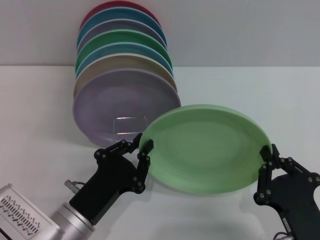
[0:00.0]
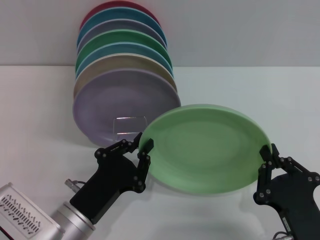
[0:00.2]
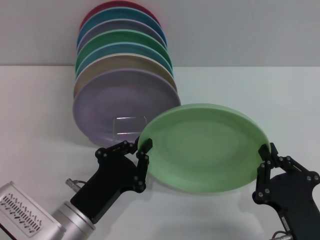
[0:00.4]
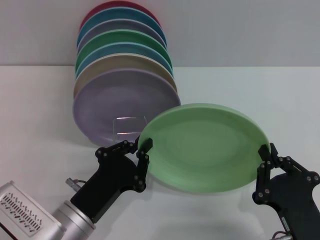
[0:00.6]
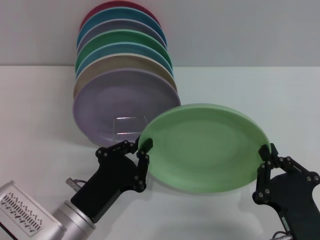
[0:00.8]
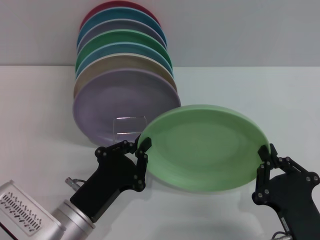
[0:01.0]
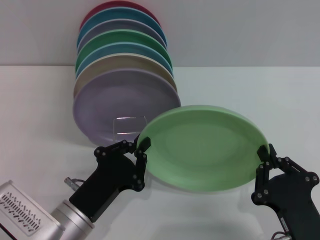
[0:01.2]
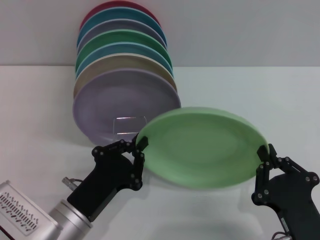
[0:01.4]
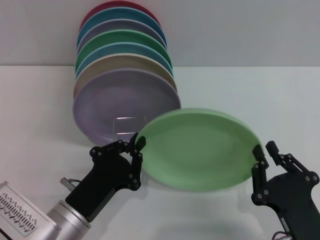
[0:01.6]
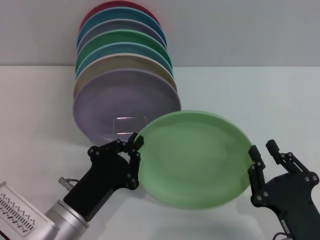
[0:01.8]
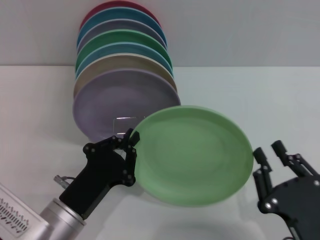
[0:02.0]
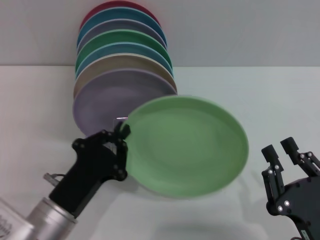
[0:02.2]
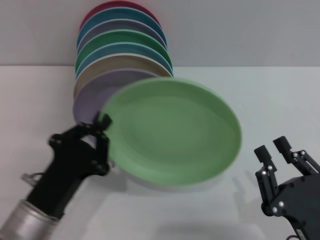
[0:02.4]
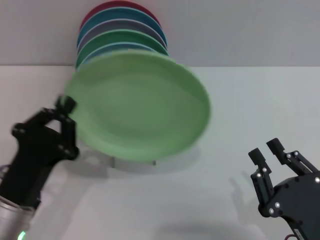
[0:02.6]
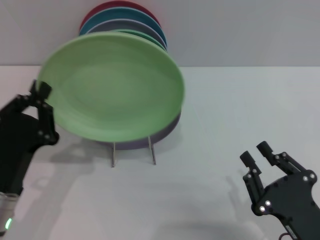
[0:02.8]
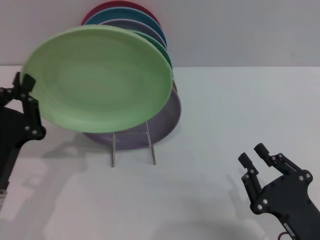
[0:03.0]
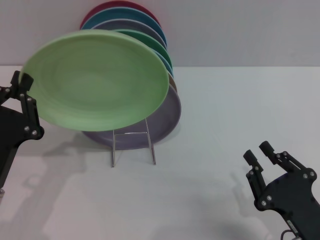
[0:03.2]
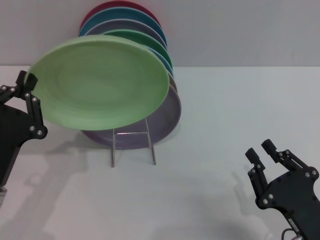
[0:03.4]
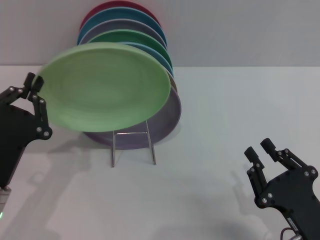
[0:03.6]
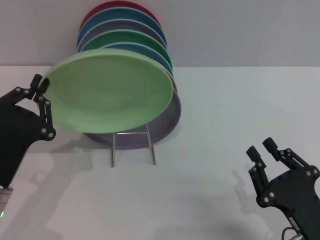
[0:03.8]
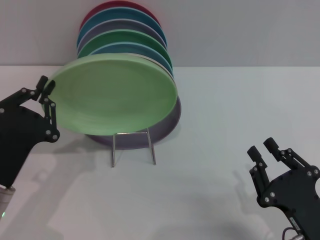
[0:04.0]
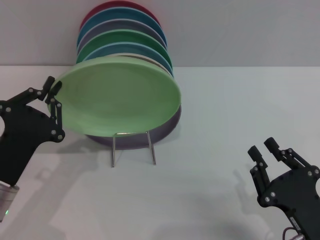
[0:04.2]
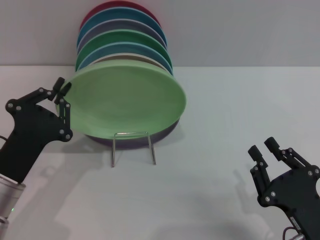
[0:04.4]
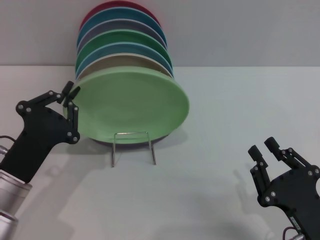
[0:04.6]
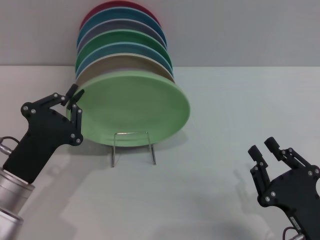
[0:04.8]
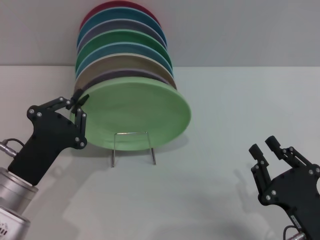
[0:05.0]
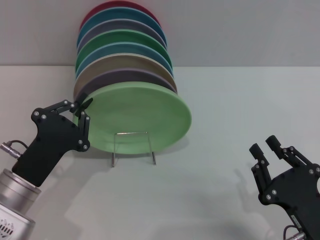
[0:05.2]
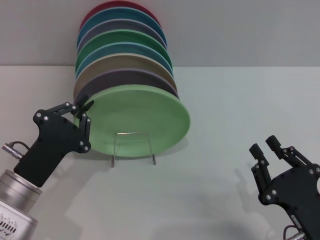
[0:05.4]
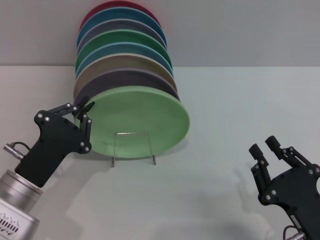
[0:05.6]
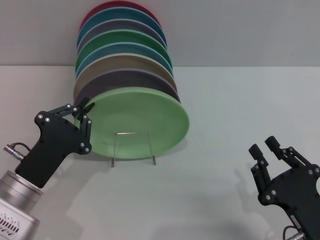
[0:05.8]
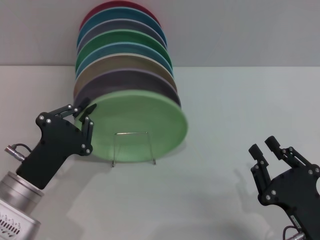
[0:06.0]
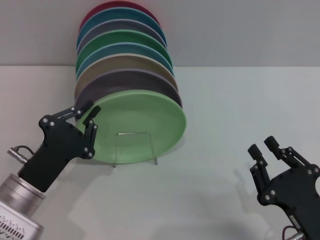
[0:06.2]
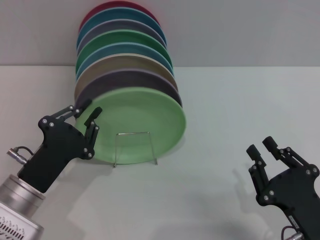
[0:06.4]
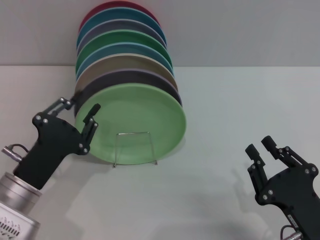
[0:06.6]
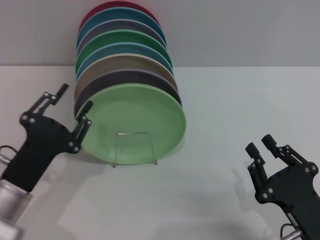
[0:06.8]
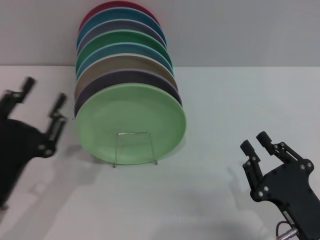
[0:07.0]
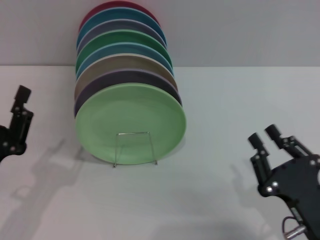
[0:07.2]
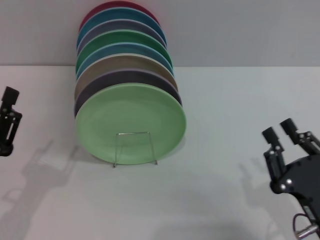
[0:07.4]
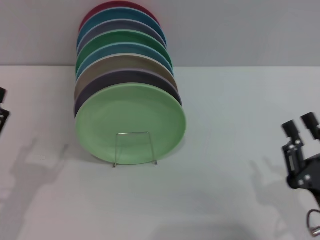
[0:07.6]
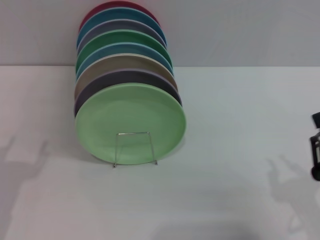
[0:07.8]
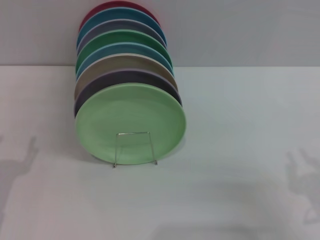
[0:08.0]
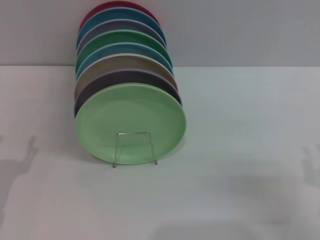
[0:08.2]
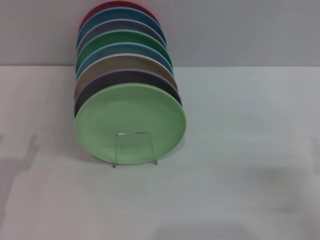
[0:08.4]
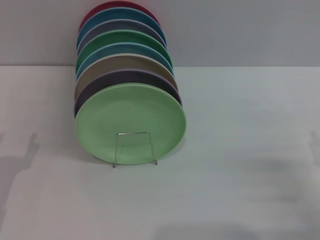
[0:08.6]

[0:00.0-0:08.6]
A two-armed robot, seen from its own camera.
Task of the whole recording: Grip the plate with one hand, pass it to the other, then set it on the shelf.
Step, 0:00.0 to 0:02.4: Pass the plate from the right gripper to the left gripper.
Step, 0:02.6 to 0:07.0: Place the plate on the shelf with the left gripper.
0:00.0 to 0:01.4: Both grippers stay about where they are.
0:01.4 to 0:02.8: The left gripper is displaced to the left by some 5 cm; the right gripper opens up.
0:04.4 to 0:05.8: The grippers make only small movements.
0:05.8 to 0:07.2: The left gripper ends up roughly 5 cm from where it was, and opens its fingers.
0:07.2 to 0:08.6: The left gripper opens up, while the right gripper moves to the right, some 10 cm, and opens.

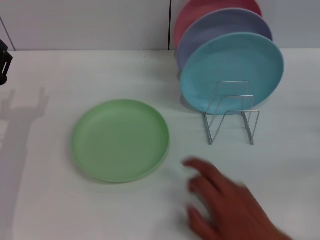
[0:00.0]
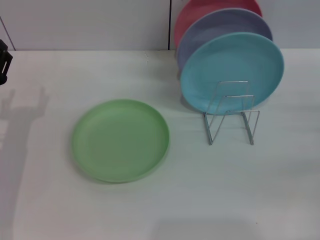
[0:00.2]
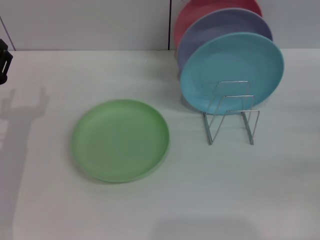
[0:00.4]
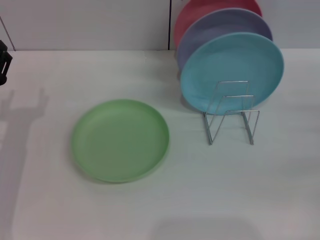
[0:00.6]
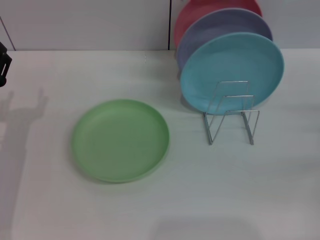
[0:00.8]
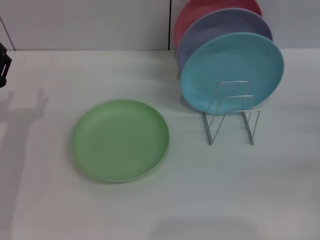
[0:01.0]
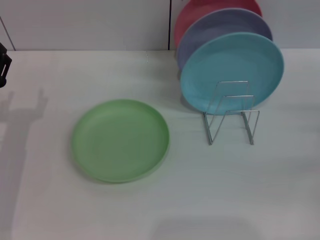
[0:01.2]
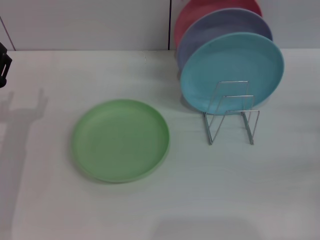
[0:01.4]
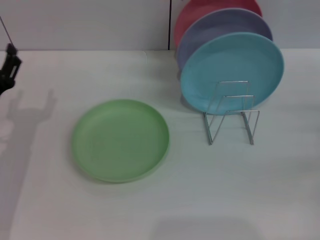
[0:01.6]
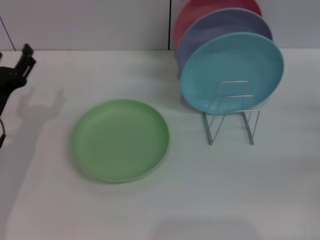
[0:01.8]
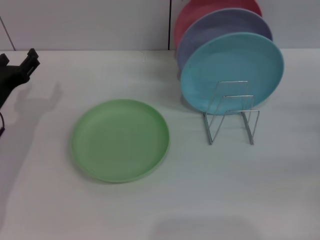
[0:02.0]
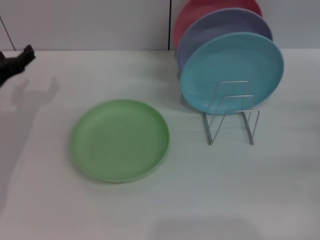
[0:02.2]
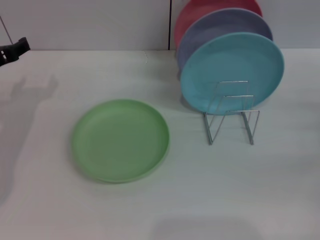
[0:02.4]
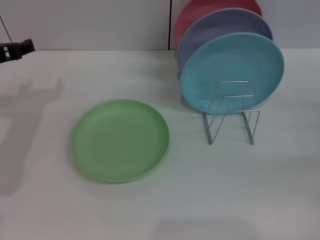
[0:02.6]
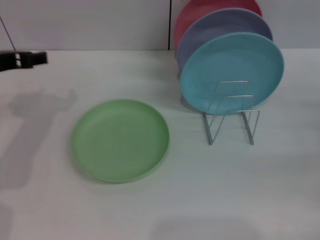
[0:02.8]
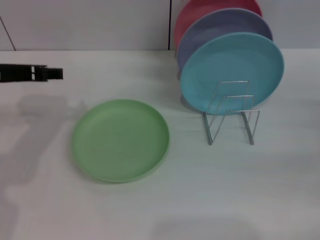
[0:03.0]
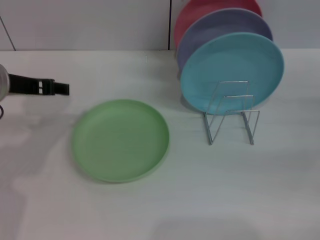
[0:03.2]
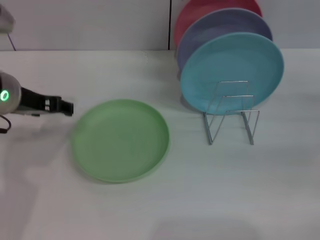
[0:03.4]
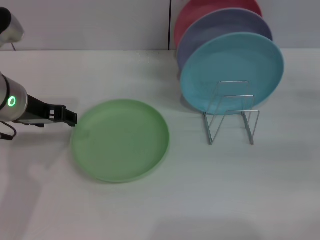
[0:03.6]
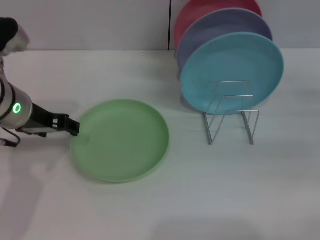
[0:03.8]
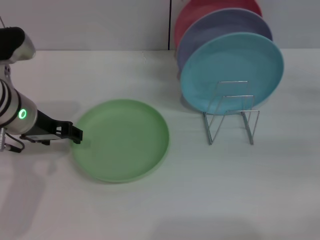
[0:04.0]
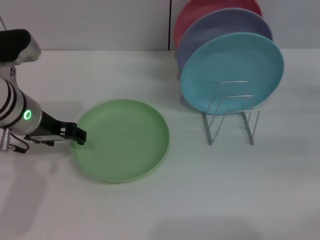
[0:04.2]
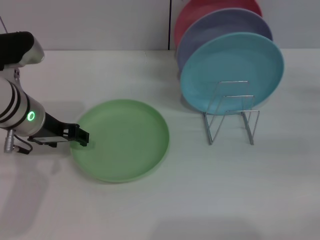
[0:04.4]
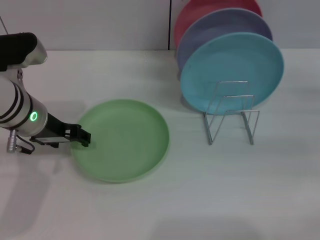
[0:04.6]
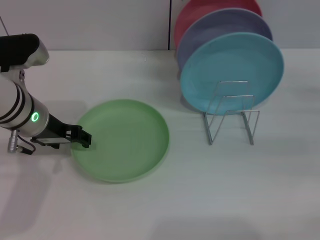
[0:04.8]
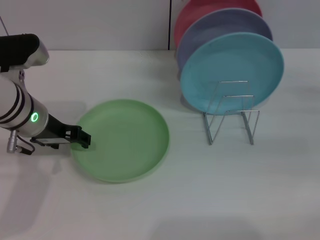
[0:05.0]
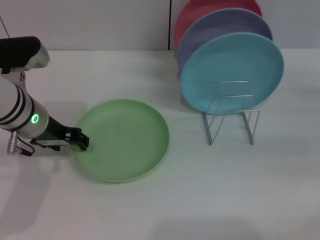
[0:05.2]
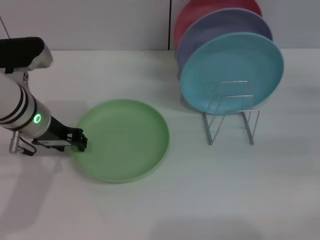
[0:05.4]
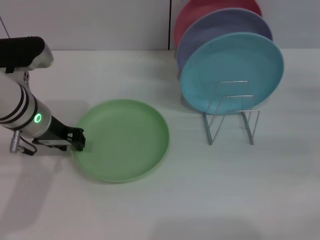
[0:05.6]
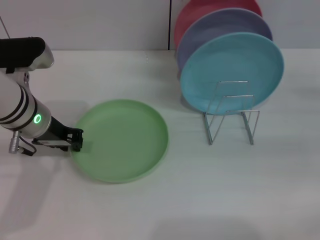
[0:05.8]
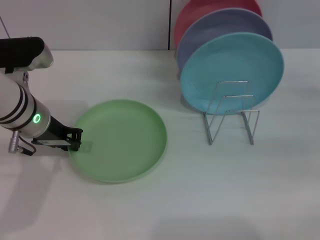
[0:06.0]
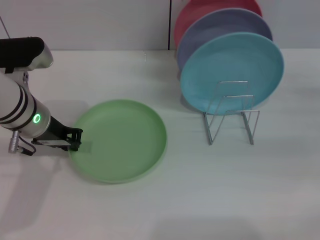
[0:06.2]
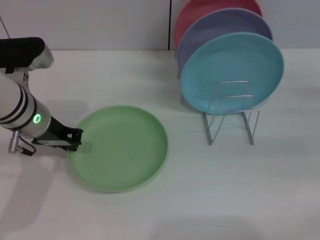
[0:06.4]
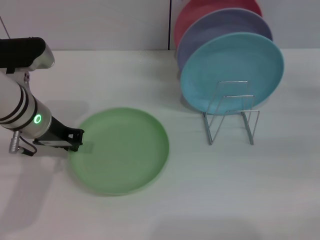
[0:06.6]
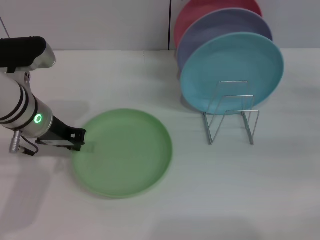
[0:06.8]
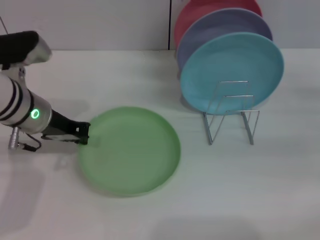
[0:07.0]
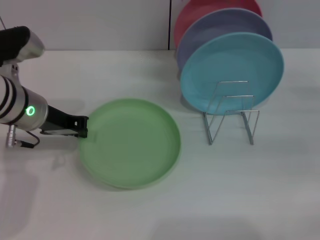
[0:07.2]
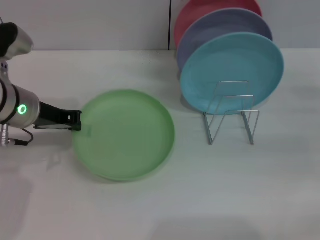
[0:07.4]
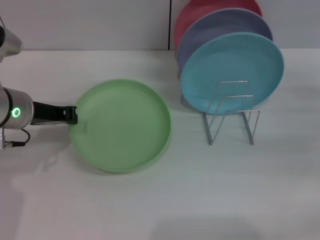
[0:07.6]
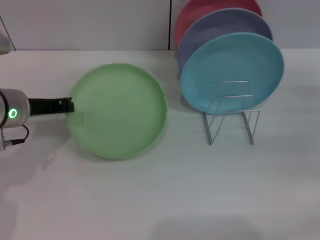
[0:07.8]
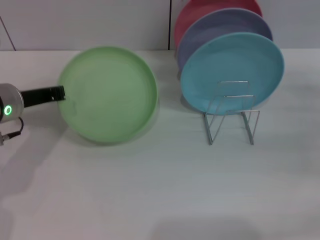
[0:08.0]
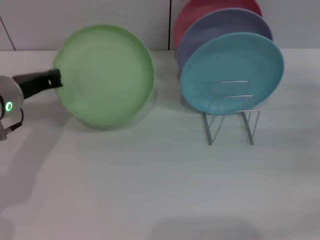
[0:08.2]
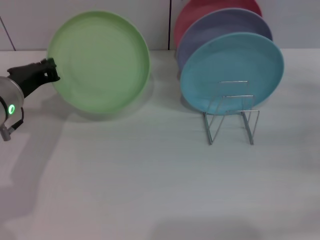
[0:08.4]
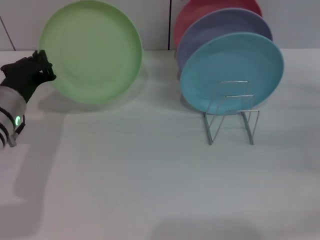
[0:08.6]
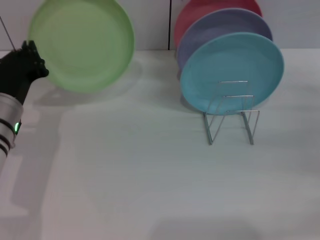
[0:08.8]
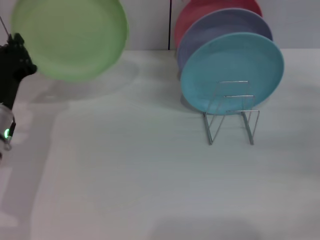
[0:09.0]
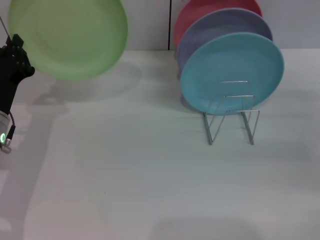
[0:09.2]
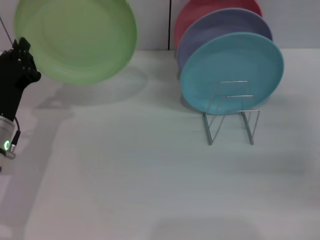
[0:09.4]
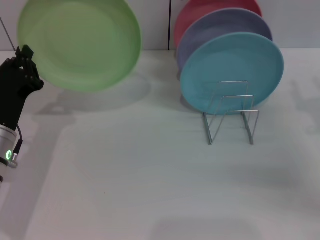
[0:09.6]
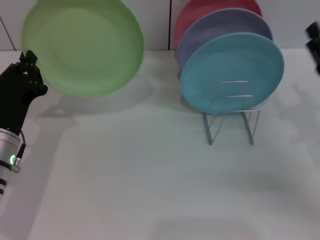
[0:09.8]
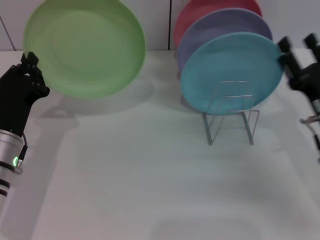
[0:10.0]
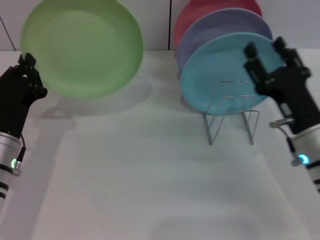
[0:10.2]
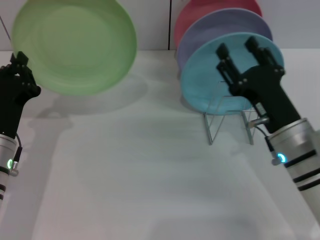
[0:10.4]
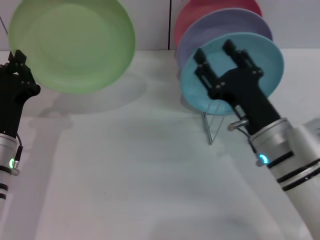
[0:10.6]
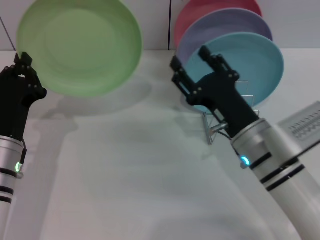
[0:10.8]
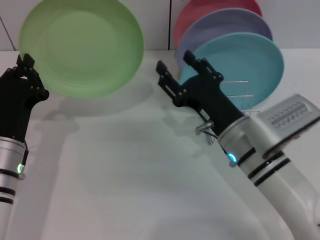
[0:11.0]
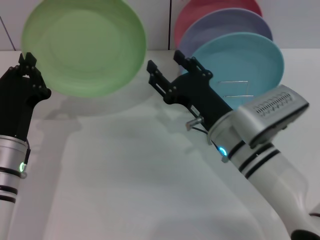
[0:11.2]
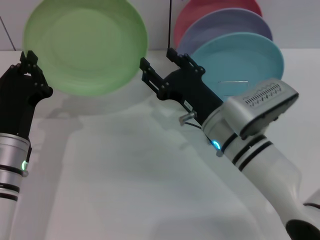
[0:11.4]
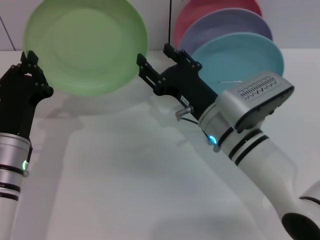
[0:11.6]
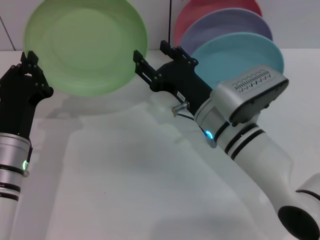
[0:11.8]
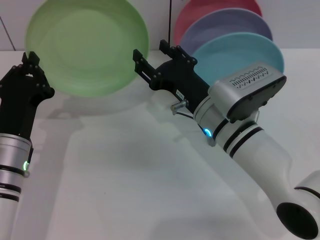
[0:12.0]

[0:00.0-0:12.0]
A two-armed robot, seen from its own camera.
Task of the whole recording: Grip the plate with one hand, pass it to the other, then set it on the shelf.
Step, 0:00.0 to 0:08.6: Pick up the plate with the left gripper.
0:00.0 to 0:01.6: Both grippers stay put.
0:01.6 to 0:03.0: The left gripper is displaced upward by roughly 15 cm.
0:03.0 to 0:04.4: The left gripper goes roughly 5 cm downward.
0:04.4 to 0:06.0: The left gripper closes its fingers.
0:06.0 to 0:07.6: The grippers make only small movements.
0:07.6 to 0:09.0: The left gripper moves downward, roughly 5 cm.
0:09.0 to 0:10.4: The right gripper shifts about 20 cm to the left.
0:10.4 to 0:12.0: The right gripper heads to the left, covering about 10 cm.

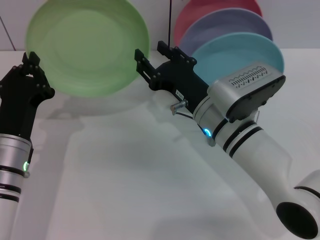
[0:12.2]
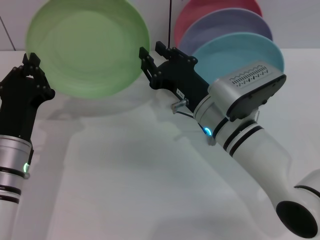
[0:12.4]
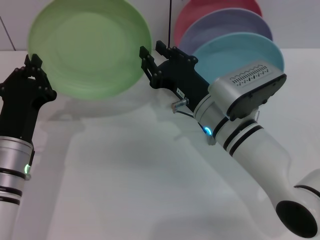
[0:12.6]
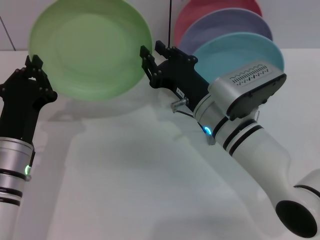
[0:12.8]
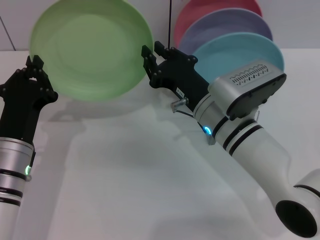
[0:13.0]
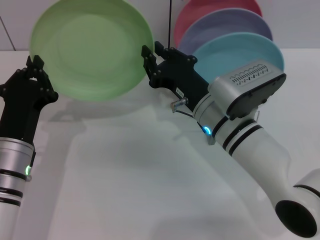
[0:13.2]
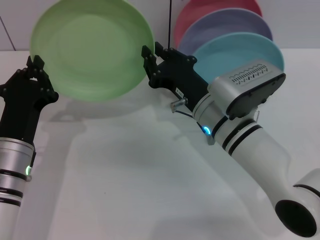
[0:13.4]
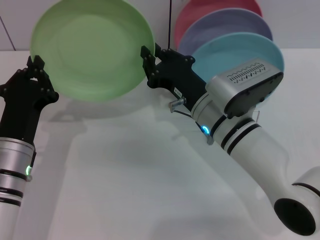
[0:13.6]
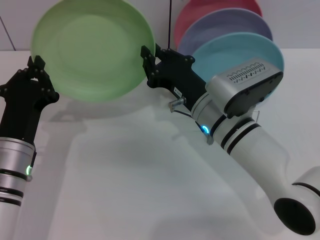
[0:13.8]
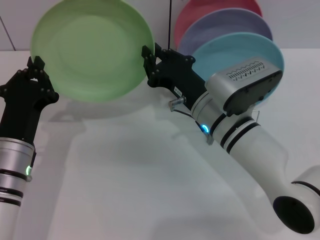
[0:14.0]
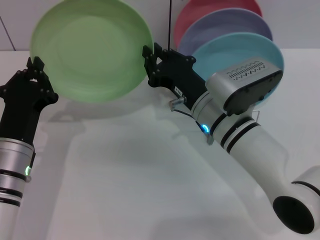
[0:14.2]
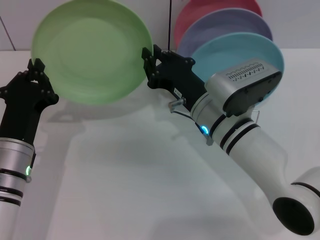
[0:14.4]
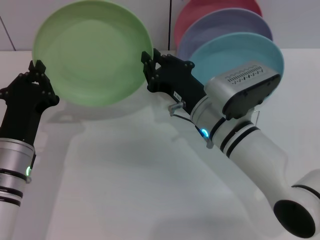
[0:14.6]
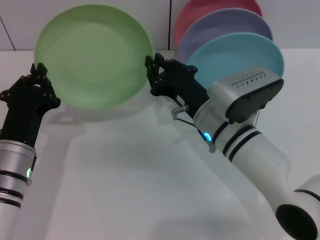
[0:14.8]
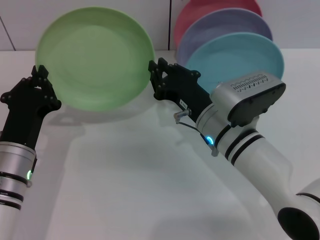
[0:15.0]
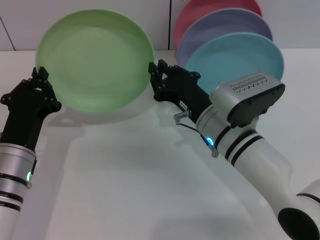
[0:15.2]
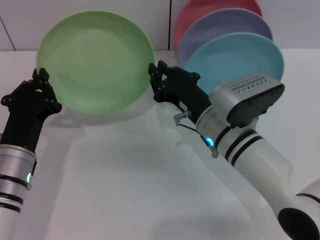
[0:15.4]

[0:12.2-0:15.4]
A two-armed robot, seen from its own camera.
Task of the whole recording: Grip the plate with one hand, pass it to the other, then set it on the shelf.
0:12.2 to 0:13.8: The right gripper closes.
0:13.8 to 0:15.4: The grippers stay close to where they were, moving slightly.
